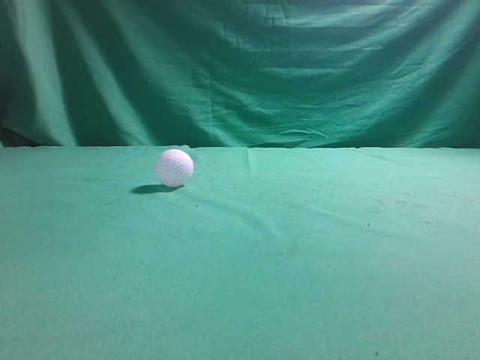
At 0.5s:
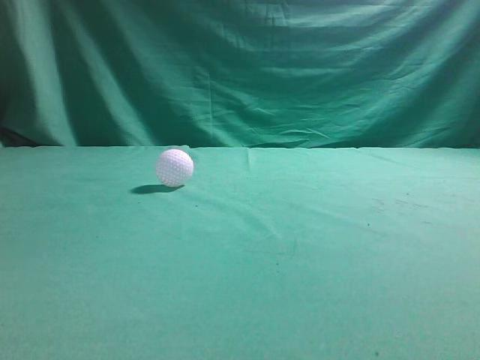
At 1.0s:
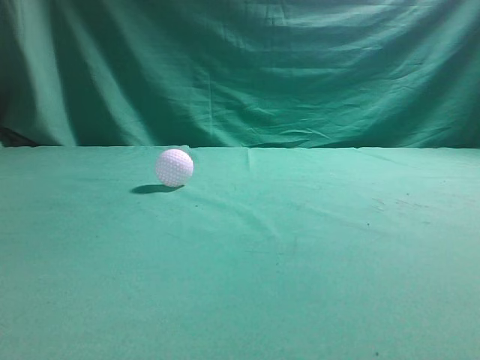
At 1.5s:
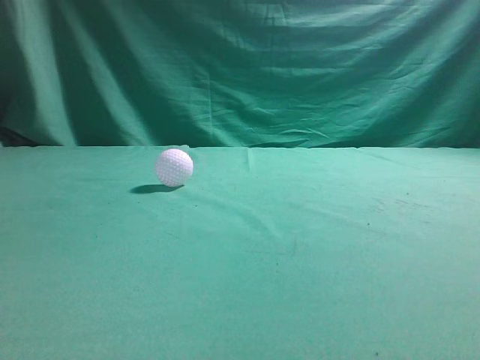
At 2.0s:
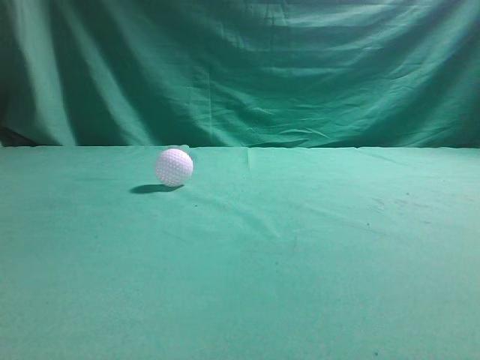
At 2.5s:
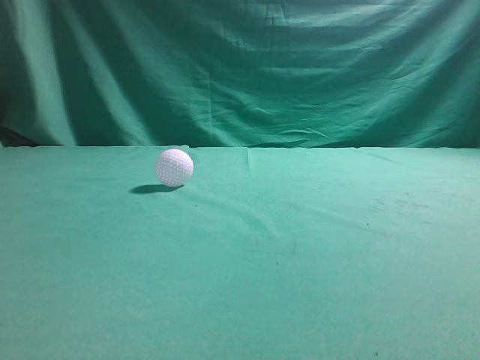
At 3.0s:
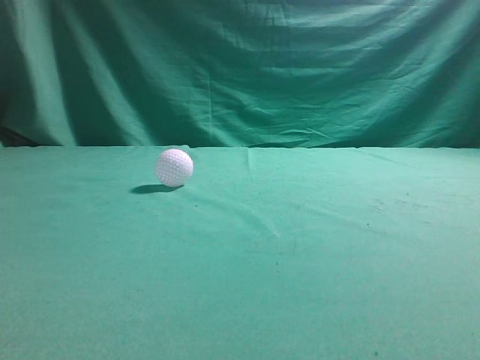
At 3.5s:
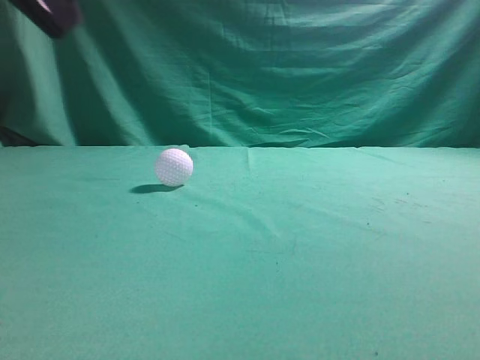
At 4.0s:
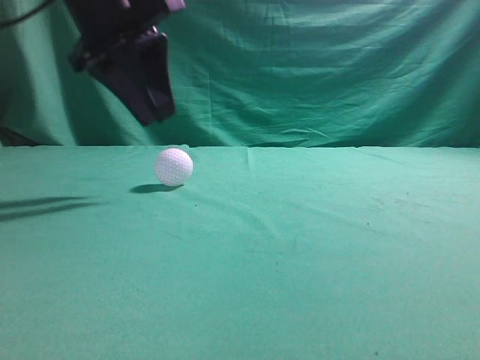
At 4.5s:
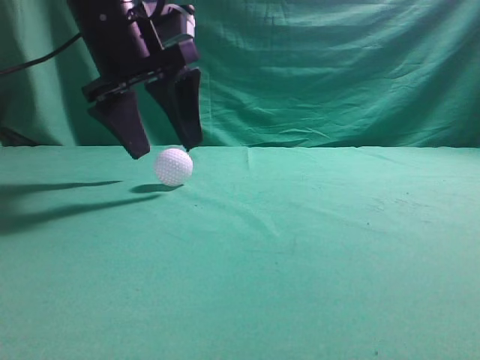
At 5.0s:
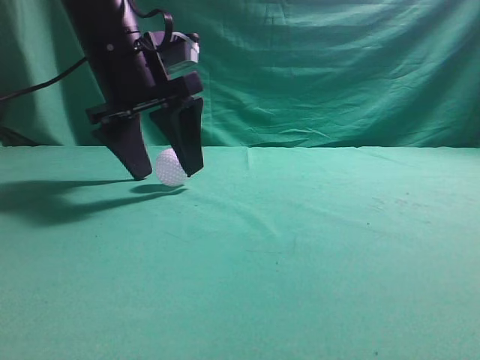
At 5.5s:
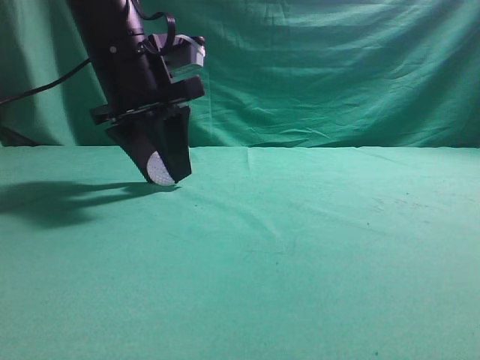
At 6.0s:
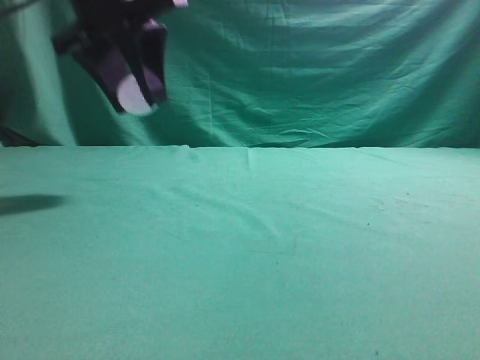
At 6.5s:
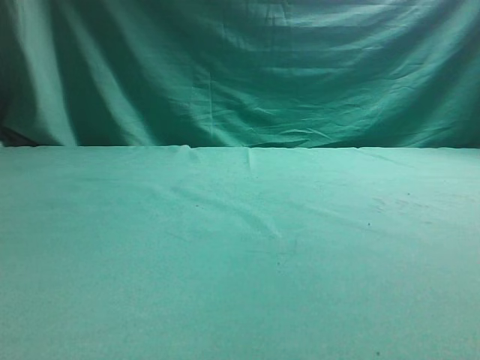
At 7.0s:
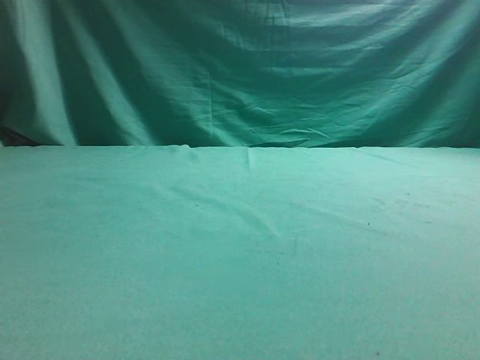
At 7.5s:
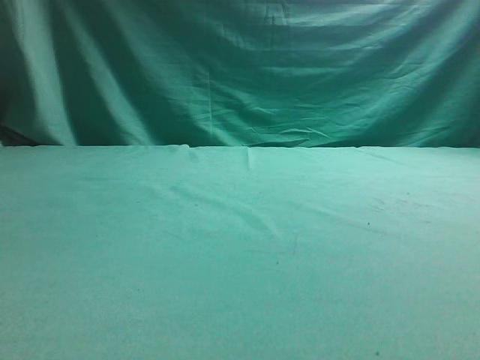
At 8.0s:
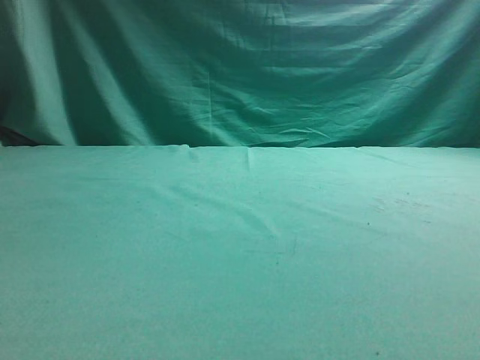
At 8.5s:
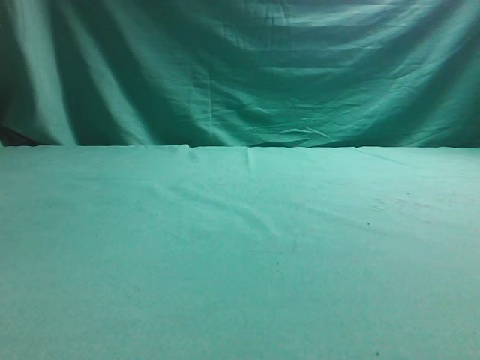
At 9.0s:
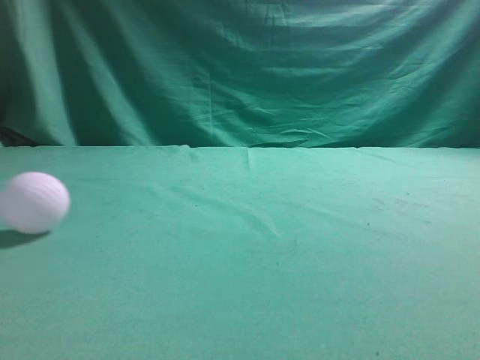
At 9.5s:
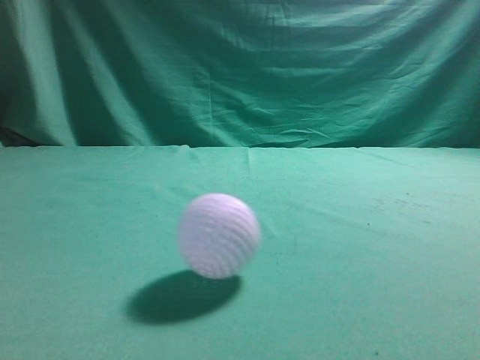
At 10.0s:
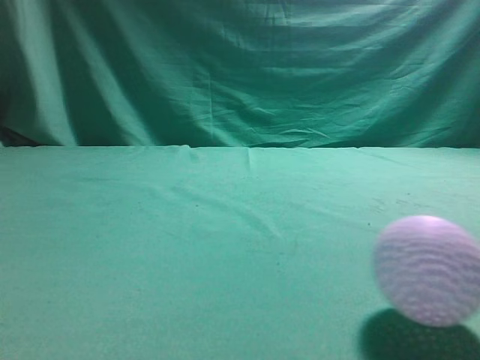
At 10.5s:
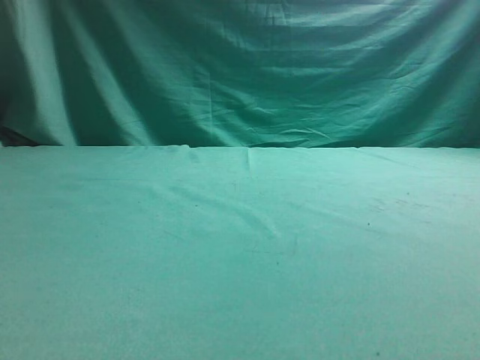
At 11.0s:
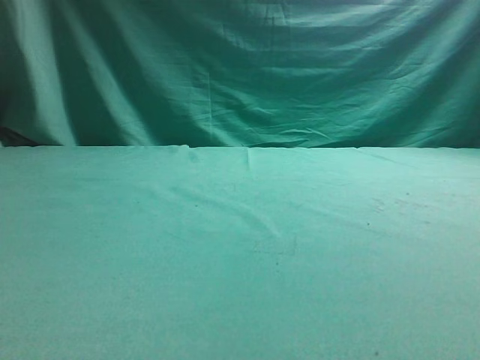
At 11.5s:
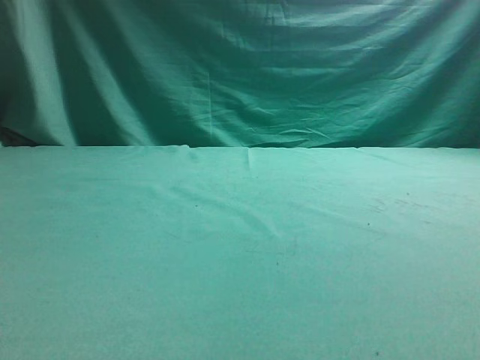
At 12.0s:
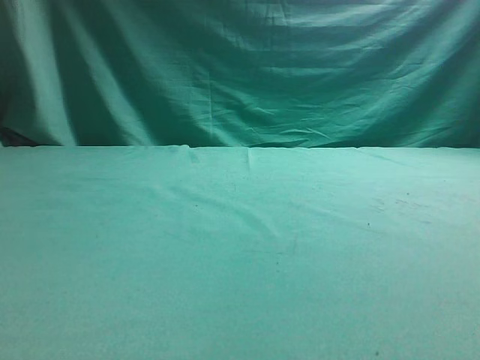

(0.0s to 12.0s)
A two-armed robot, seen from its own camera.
Task of the whole recording: pick up the ball and place it on the plate, then pick up the ball from the plate and put it in the center of the table.
Step, 0.0s - 5.5s: Grab the spherical object with your left arm.
Step, 6.0s - 8.0s: Place the sphere on the white object.
2.0s - 4.0s: The left gripper moves forward and to the right, roughly 35 cm, and opens.
4.0s - 6.0s: The left gripper ends up approximately 5 cm from where it was.
6.0s - 8.0s: The left gripper shifts roughly 20 cm to the left.
8.0s - 10.0s: The right gripper goes some 5 cm upward.
10.0s - 12.0s: The right gripper shifts some 10 cm to the left and forward.

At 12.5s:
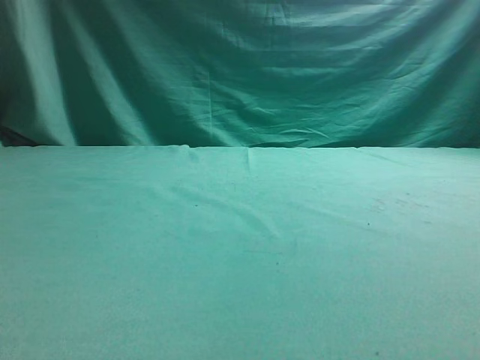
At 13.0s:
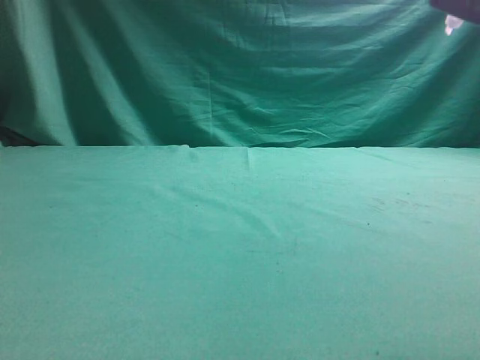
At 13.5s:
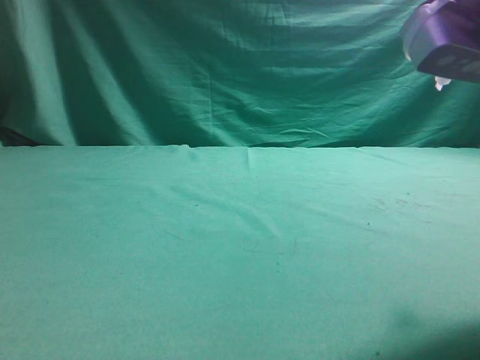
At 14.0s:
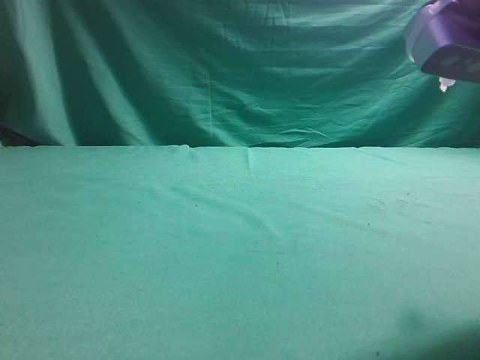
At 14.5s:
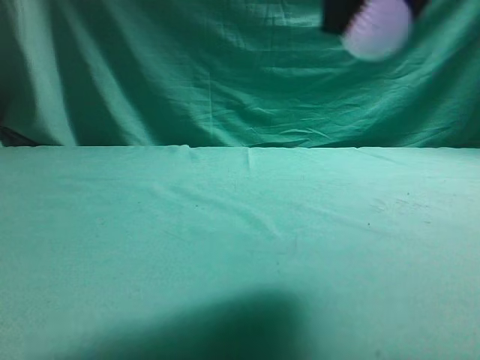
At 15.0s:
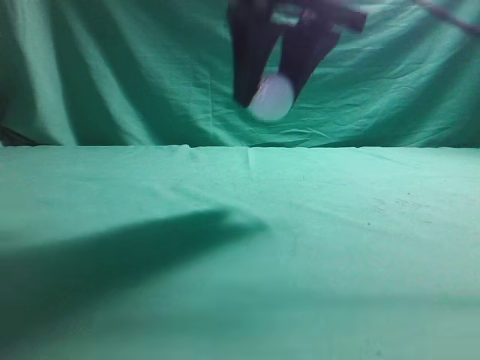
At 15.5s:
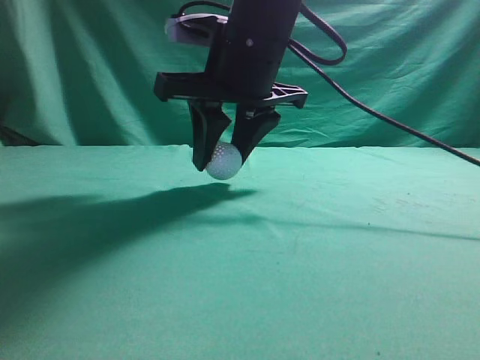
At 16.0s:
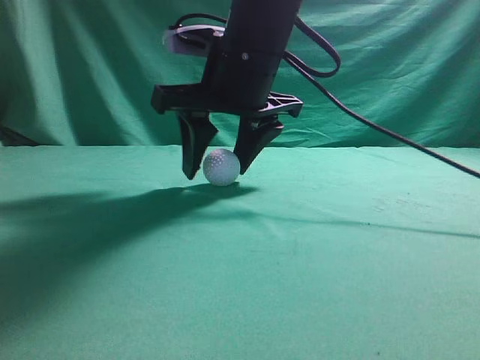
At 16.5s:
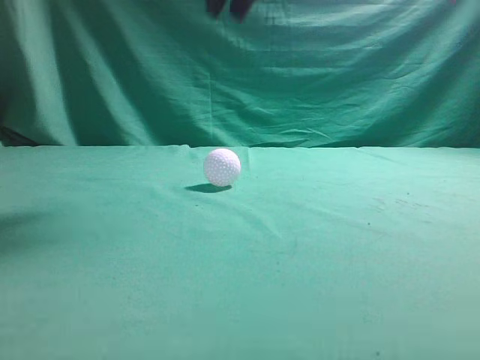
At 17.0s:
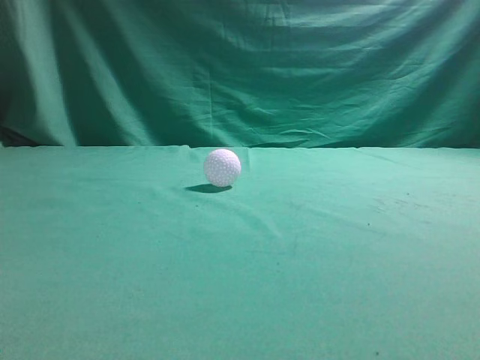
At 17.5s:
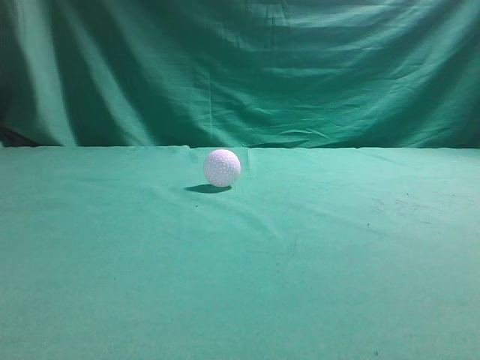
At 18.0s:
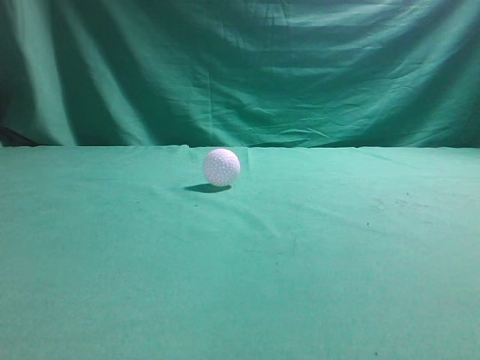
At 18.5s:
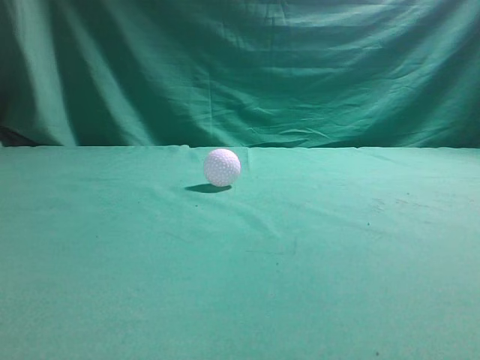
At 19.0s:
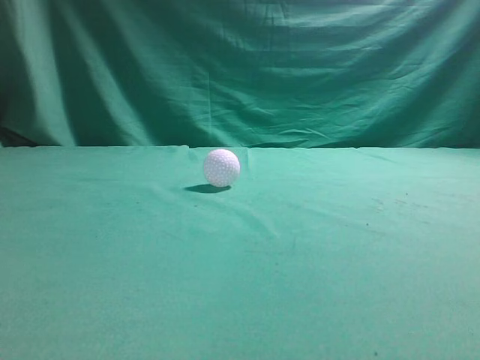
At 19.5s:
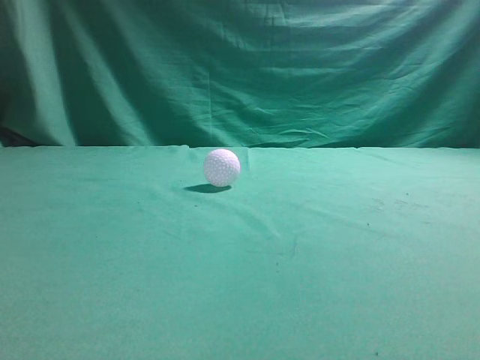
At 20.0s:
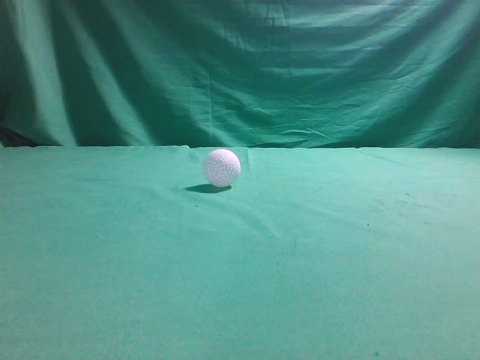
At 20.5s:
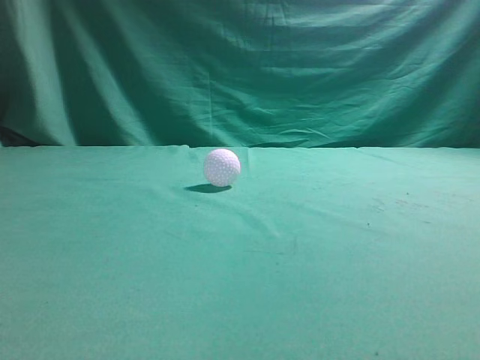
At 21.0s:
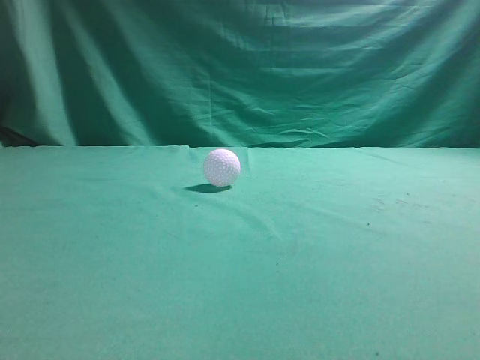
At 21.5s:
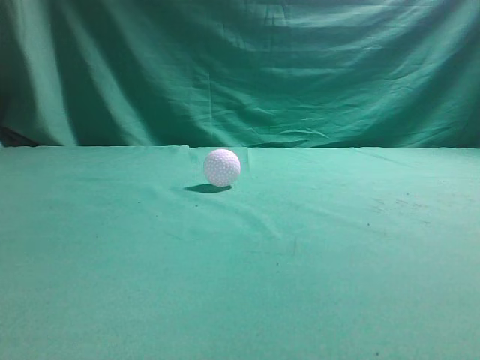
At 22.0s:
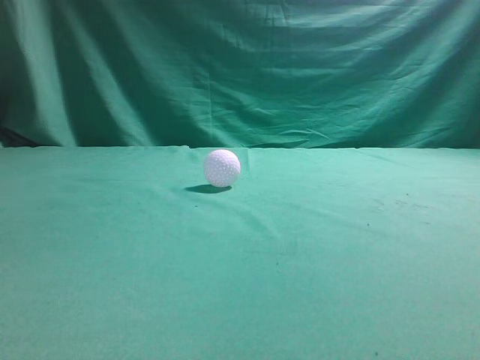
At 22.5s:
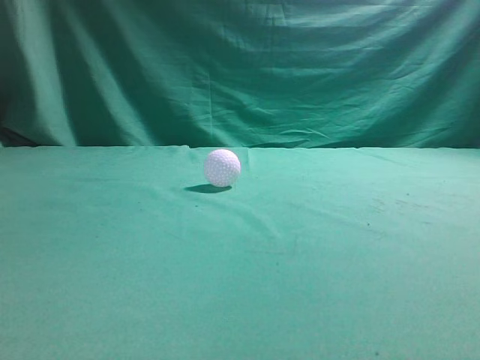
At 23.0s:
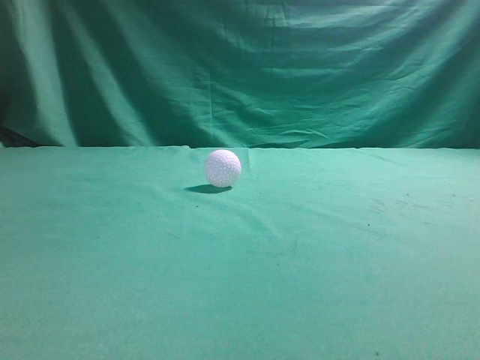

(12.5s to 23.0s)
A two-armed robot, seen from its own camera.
Task of the whole recording: pick up the ball and place it on the plate, then pick up the ball from the plate and put it in the center of the table.
Step, 14.5s - 16.0s: Put the picked-up object on the table.
12.5s - 14.5s: The right gripper goes approximately 15 cm forward, upward and to the left, and closes up.
14.5s - 16.5s: The right gripper moves upward and forward, approximately 10 cm, and closes.
16.5s - 19.0s: The right gripper is displaced backward, to the right and downward by approximately 30 cm.
